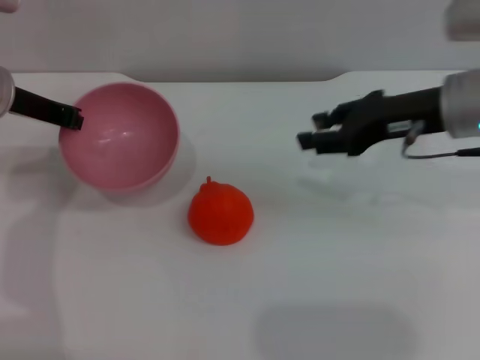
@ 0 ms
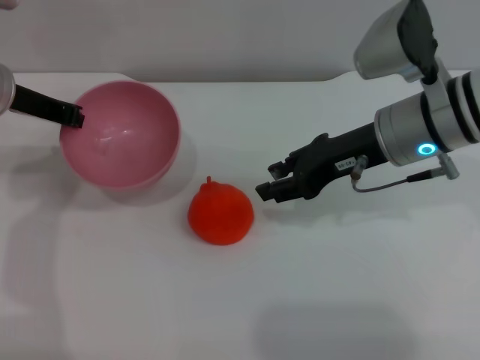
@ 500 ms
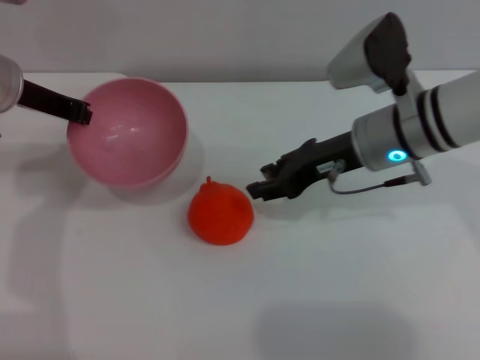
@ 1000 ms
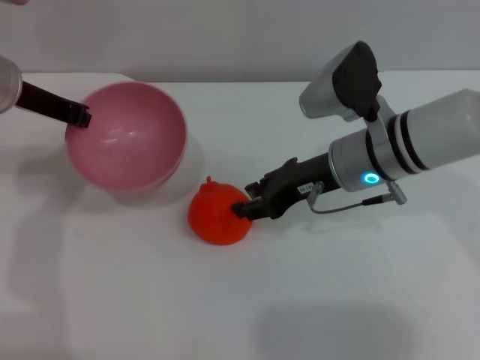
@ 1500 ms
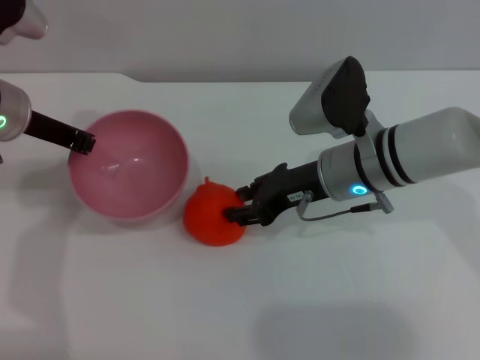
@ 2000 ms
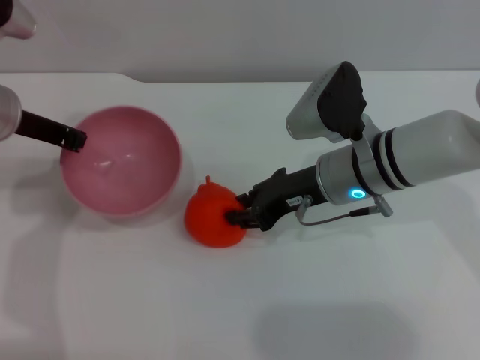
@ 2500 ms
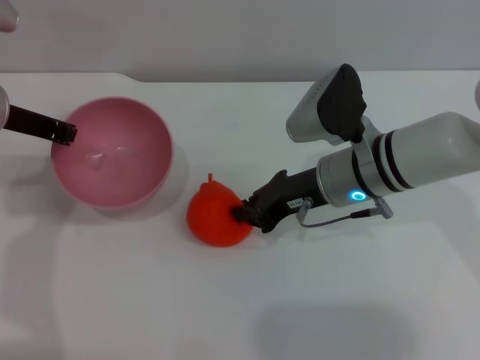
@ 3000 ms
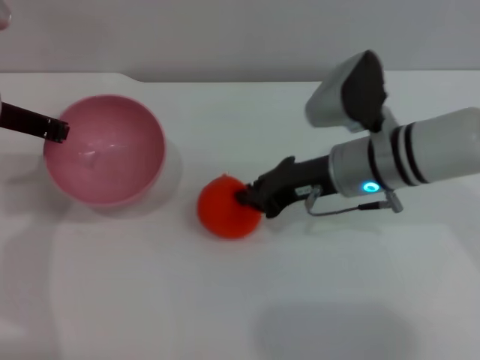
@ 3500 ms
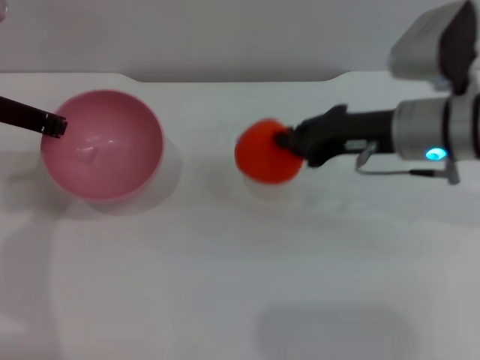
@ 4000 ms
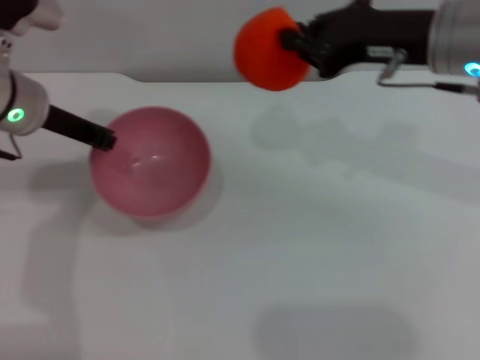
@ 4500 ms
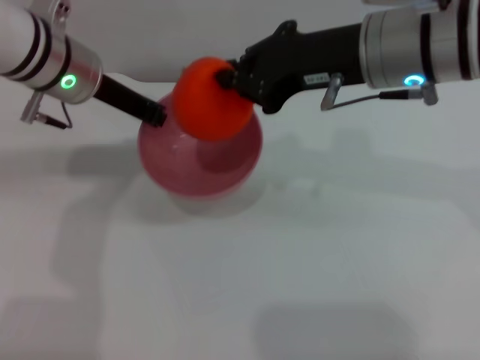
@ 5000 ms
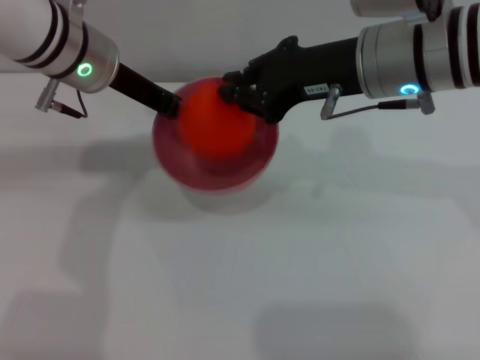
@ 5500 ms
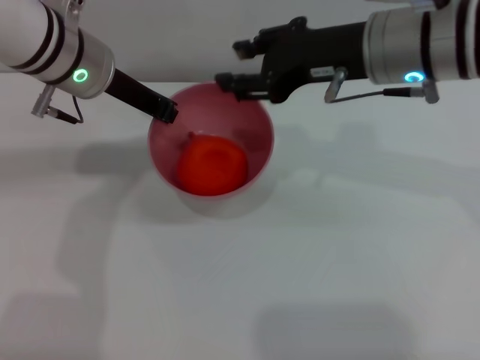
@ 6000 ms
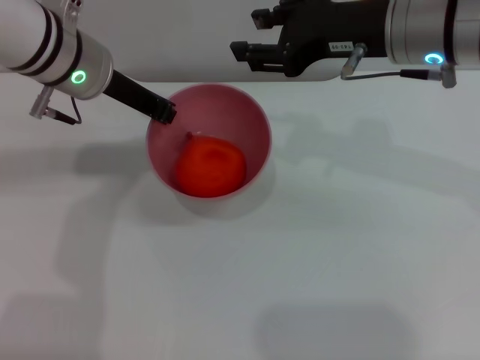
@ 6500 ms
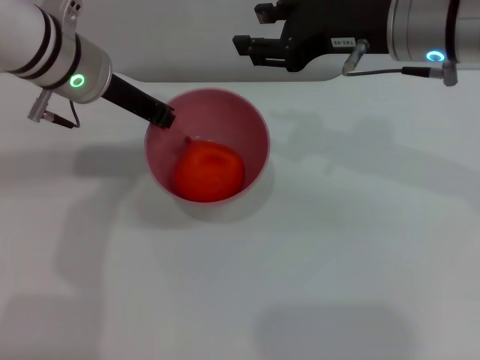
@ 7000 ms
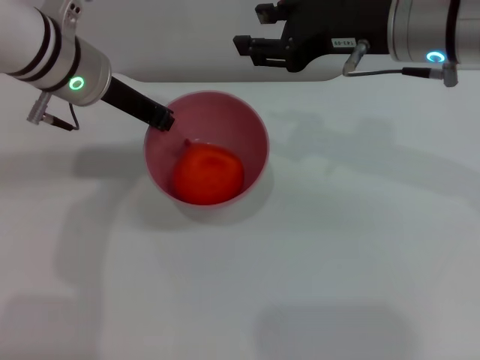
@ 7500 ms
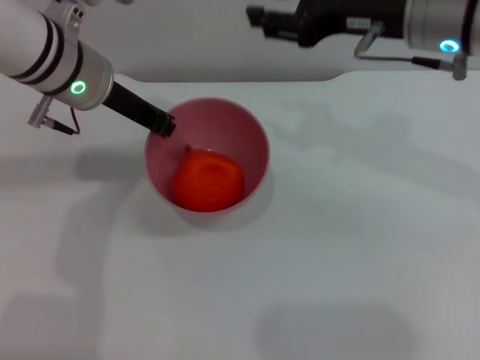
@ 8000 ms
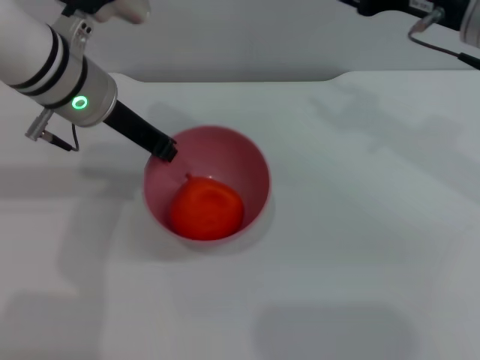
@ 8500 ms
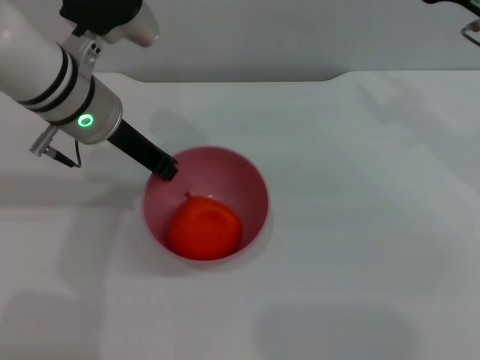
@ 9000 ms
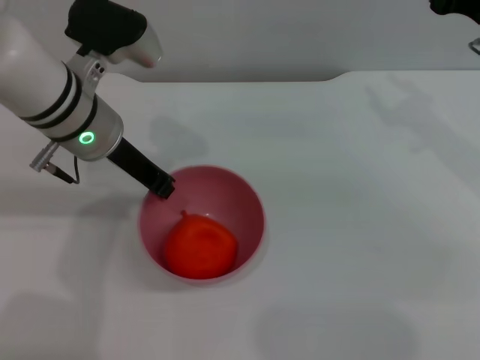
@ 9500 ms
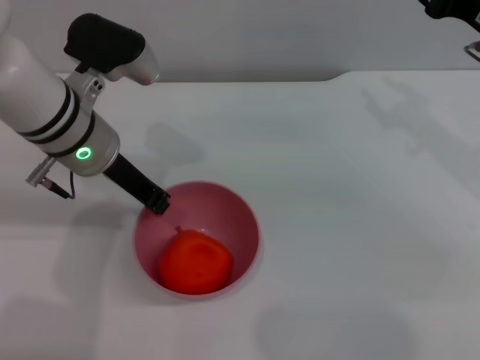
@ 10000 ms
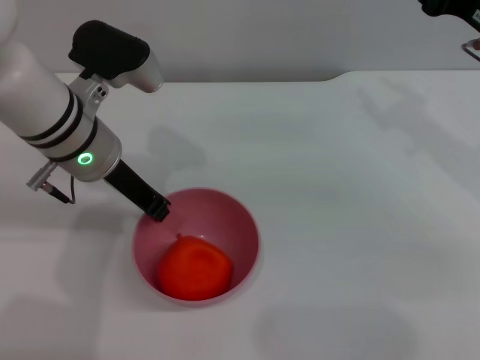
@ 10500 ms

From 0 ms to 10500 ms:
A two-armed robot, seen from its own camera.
Task of the whole recording: put the orange into the pink bowl and pour it out repeatedly.
Step, from 0 ms to 3500 ms: Pick up the orange with the right gripper.
Step, from 4000 ms to 5500 ms: Place the orange into the bowl.
From 0 ms to 2000 ms: The right gripper travels to the left and downward by about 10 cm.
From 2000 ms to 4000 ms: The right gripper moves to the right and upward, roughly 10 cm, and closes up.
From 4000 ms to 6500 ms: The left gripper is displaced to the right by roughly 10 cm. Meanwhile the right gripper goes some 10 cm upward, and opens.
From 6500 ms to 8500 ms: The right gripper shifts roughly 5 cm to the right.
From 8500 ms to 10500 ms: The right gripper is displaced to the right by approximately 5 cm.

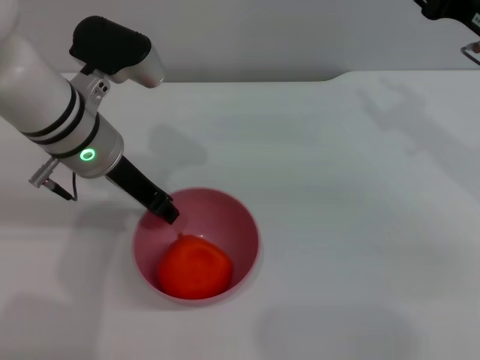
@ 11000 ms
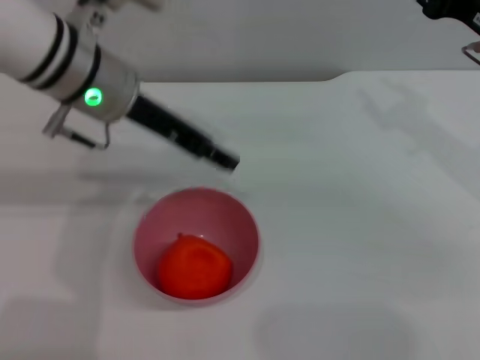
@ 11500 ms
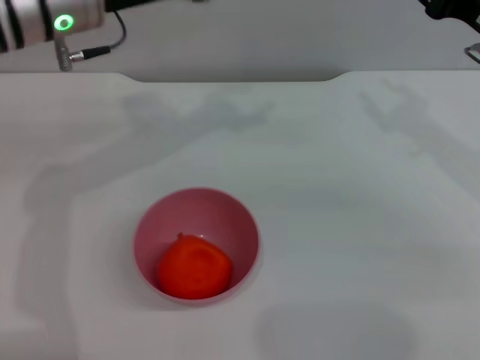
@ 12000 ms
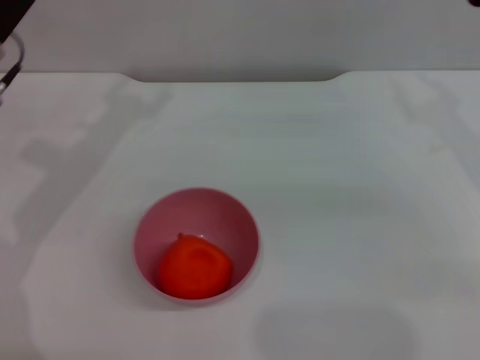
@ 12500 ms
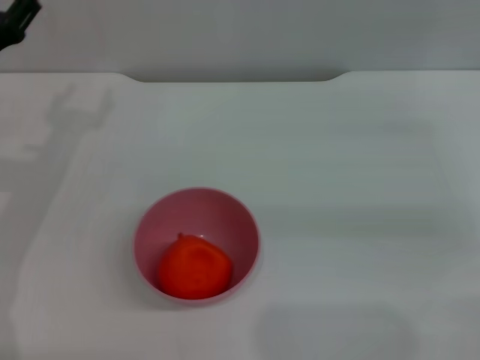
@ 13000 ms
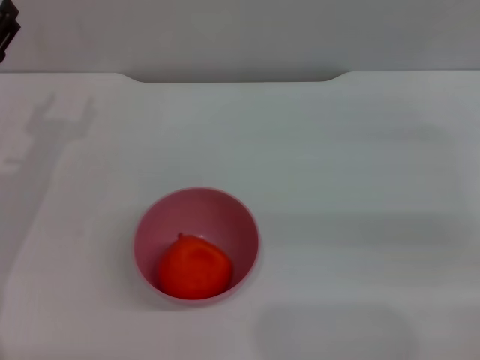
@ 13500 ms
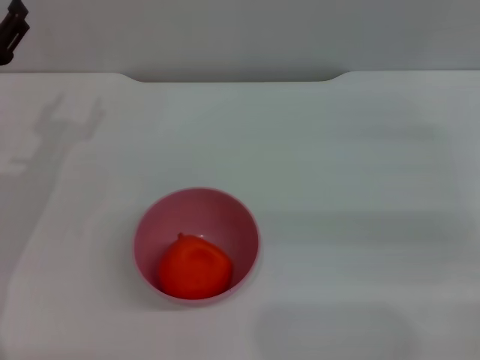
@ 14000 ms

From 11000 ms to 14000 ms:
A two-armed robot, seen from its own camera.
Task of the whole recording: put the orange into the pink bowl and pour it out repeatedly.
From 11000 ms to 12500 ms: The left gripper travels to the left by some 10 cm, and opens its fingers.
From 12500 ms to 14000 ms: The left gripper shifts about 5 cm downward.
